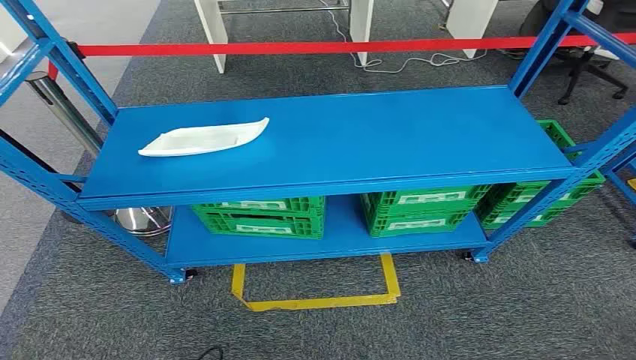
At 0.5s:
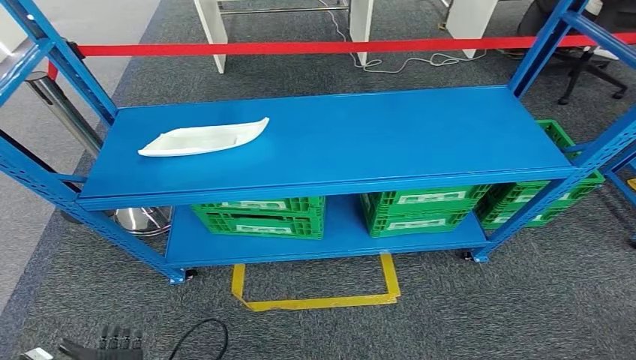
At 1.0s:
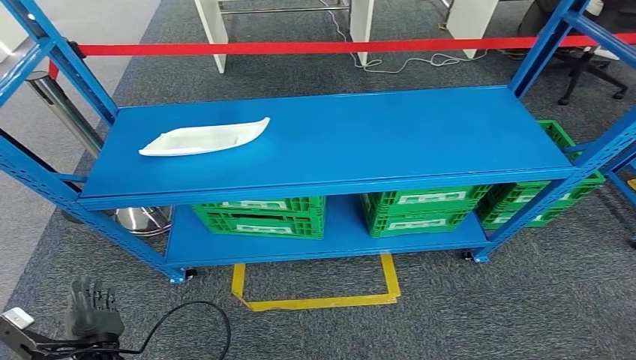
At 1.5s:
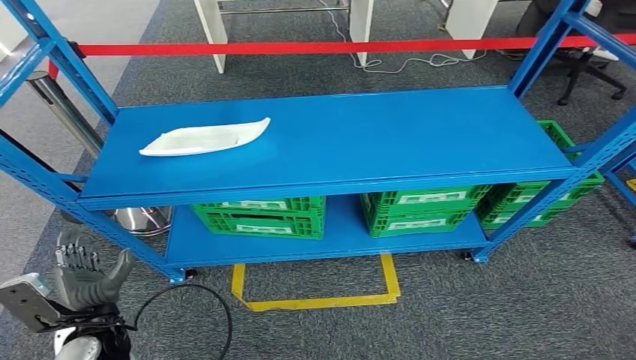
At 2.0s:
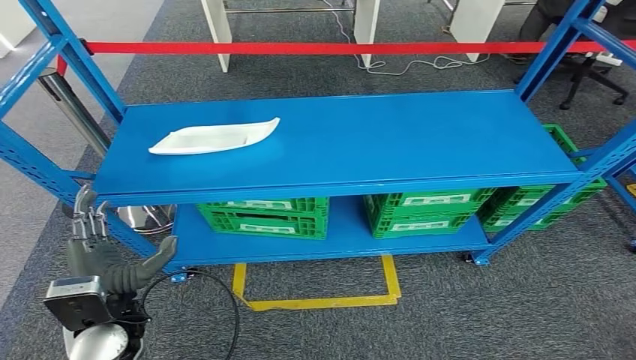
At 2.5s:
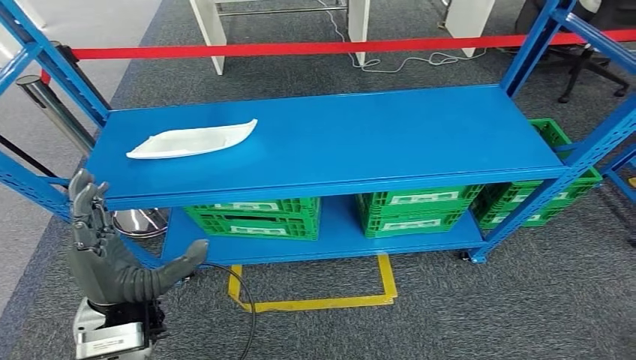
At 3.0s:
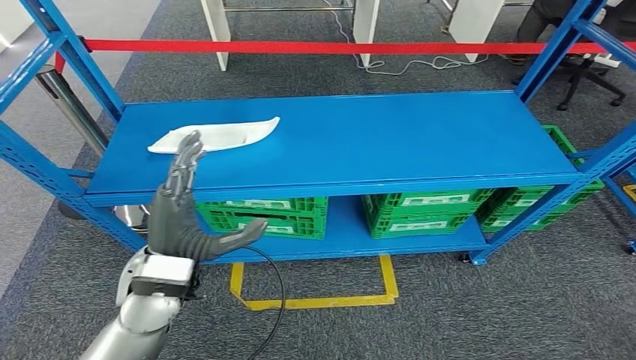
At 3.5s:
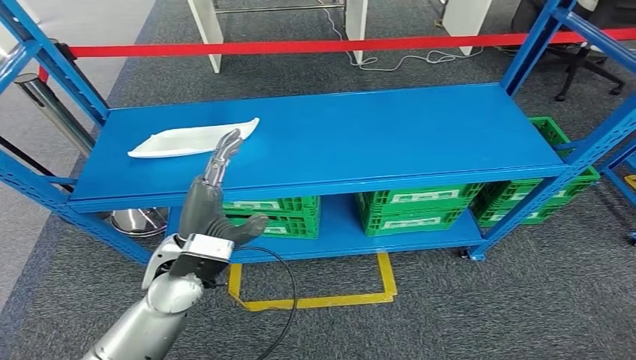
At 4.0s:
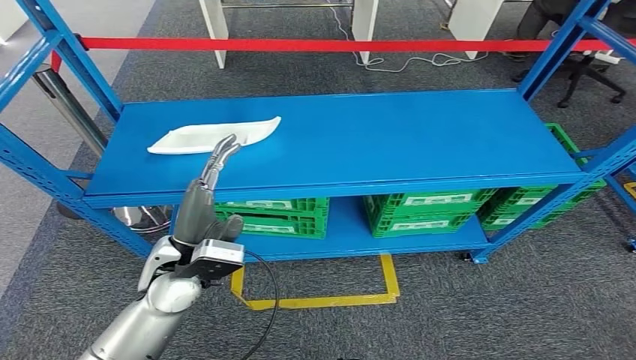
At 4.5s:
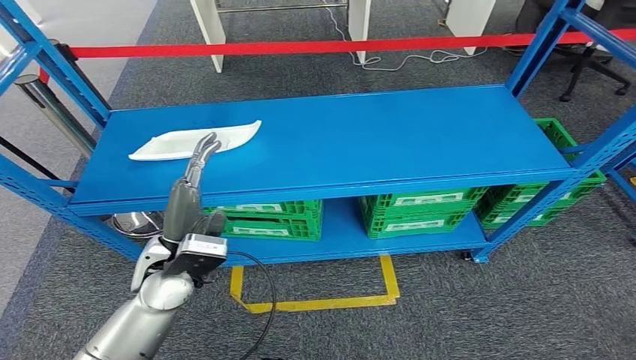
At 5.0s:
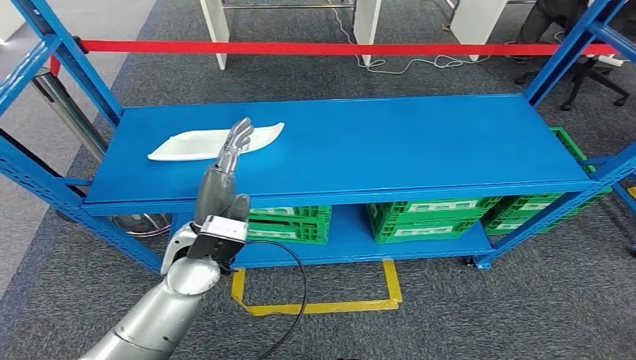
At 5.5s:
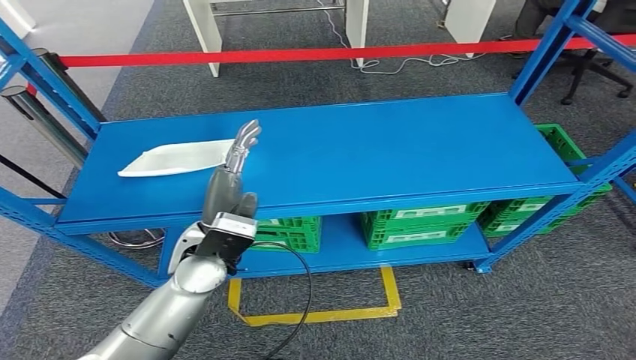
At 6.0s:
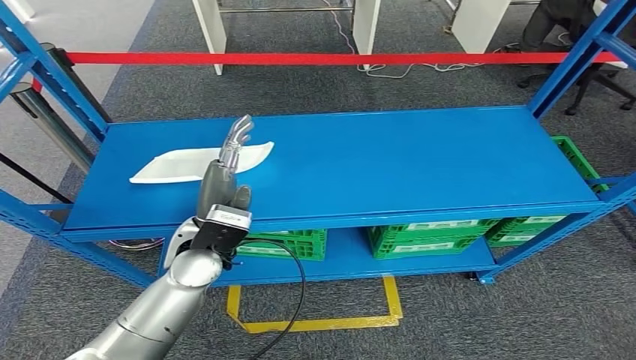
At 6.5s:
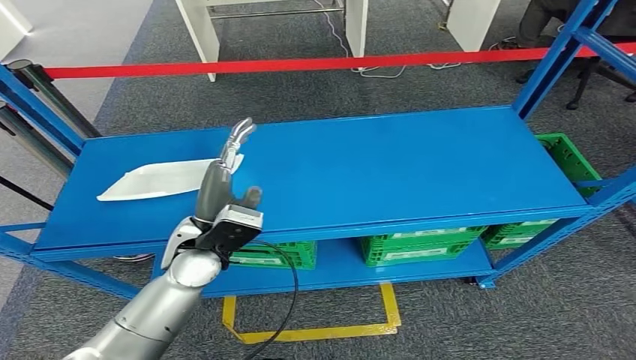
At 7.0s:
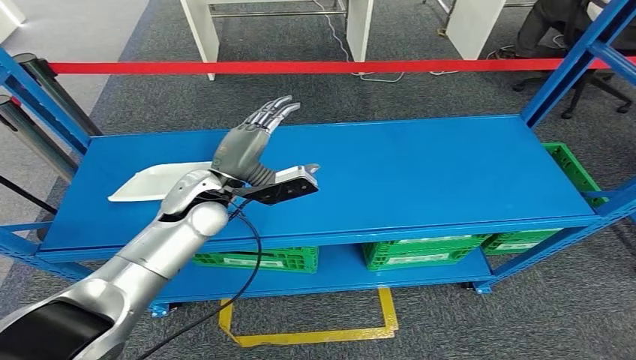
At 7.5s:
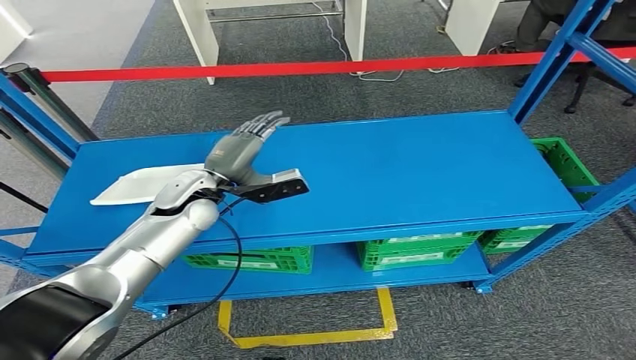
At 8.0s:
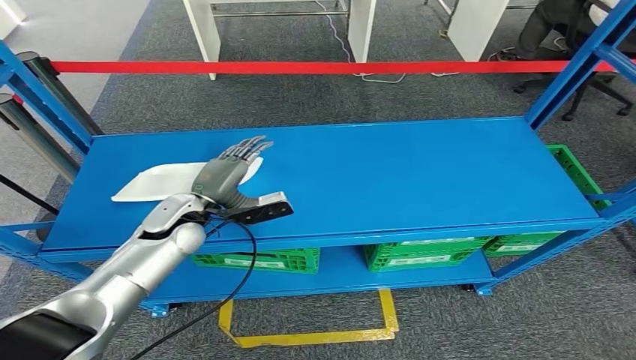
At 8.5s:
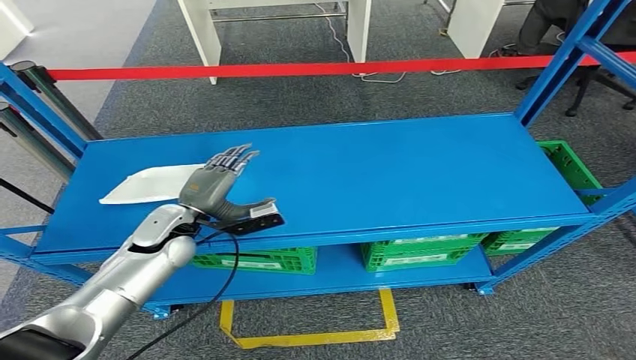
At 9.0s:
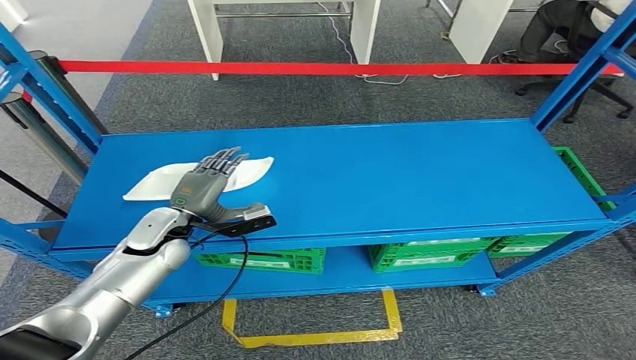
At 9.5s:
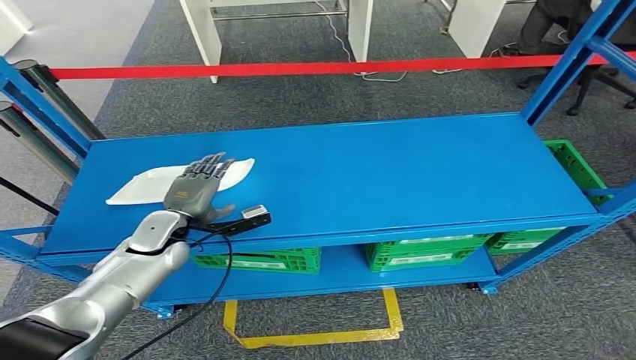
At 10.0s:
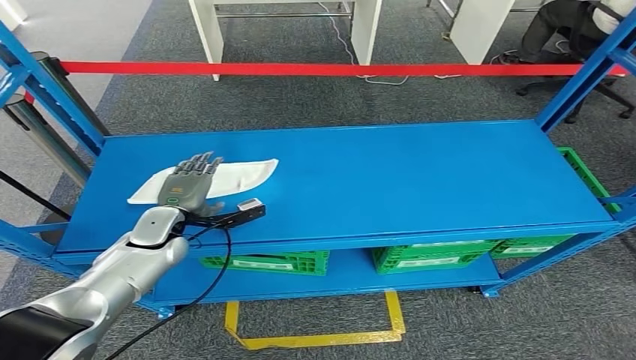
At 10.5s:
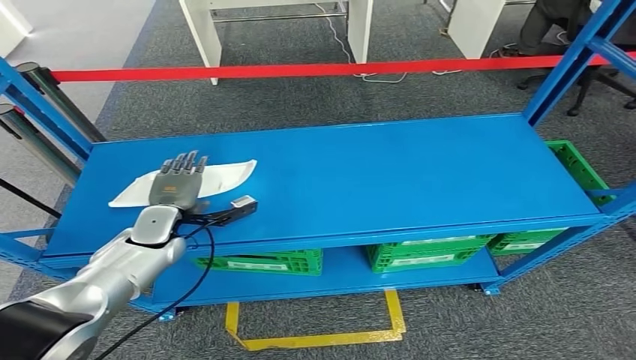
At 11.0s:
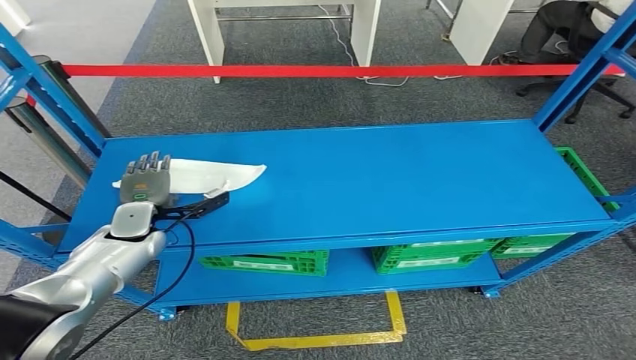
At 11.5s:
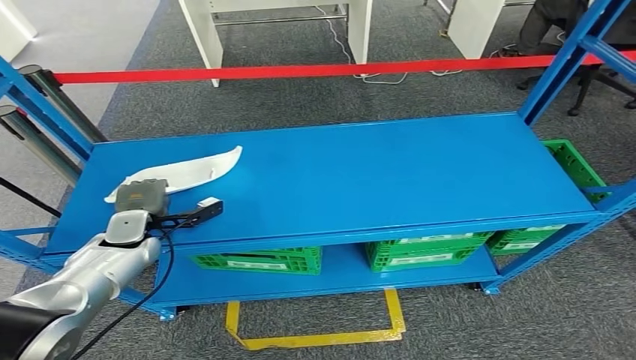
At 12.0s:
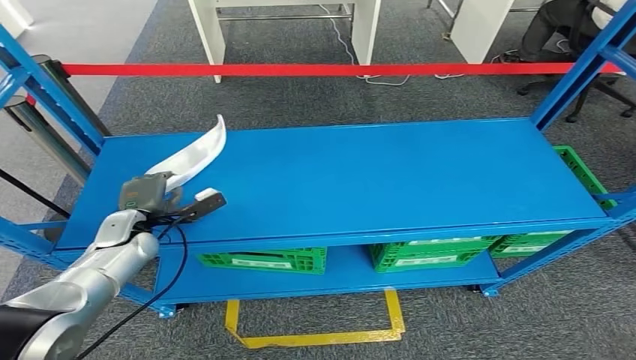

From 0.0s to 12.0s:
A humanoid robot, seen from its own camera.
From 2.0s to 4.0s: The left hand travels forward, to the right and upward by about 15 cm.
From 10.0s to 12.0s: The left hand goes some 5 cm to the left.

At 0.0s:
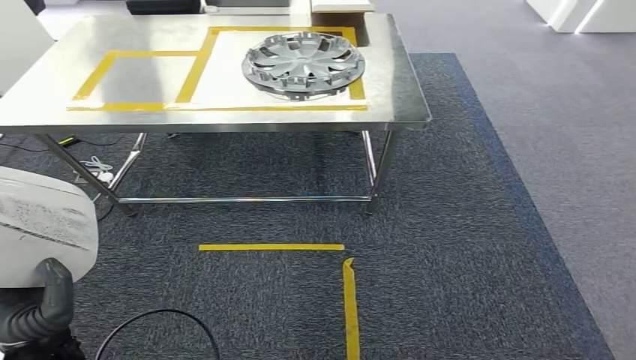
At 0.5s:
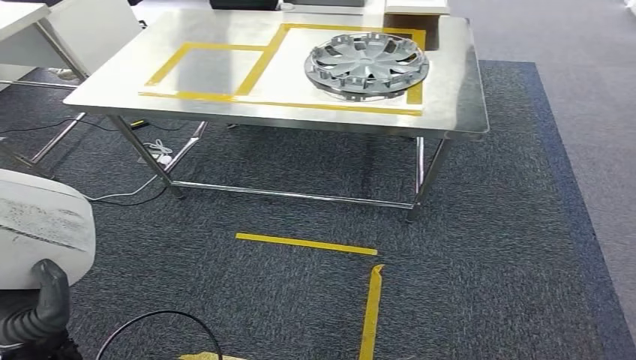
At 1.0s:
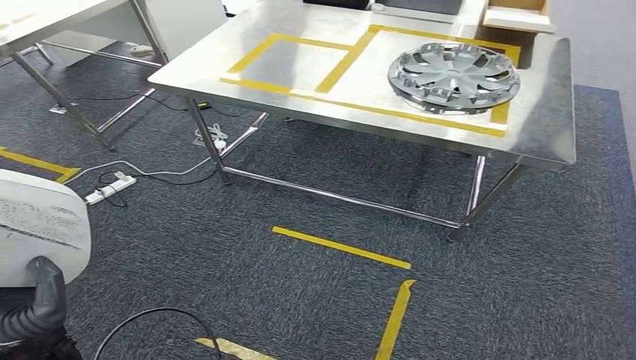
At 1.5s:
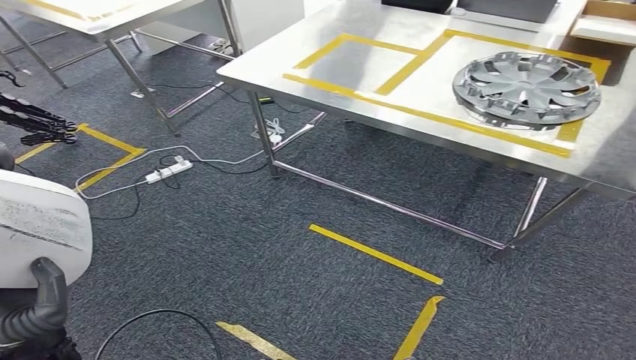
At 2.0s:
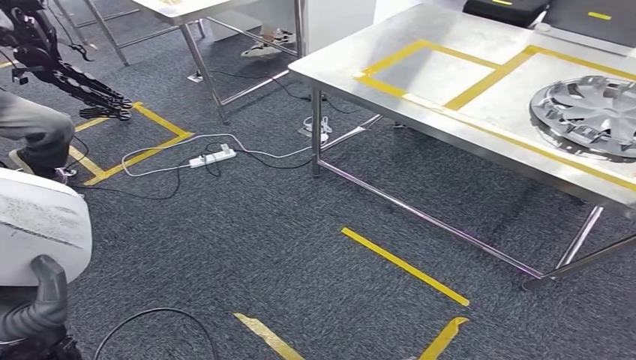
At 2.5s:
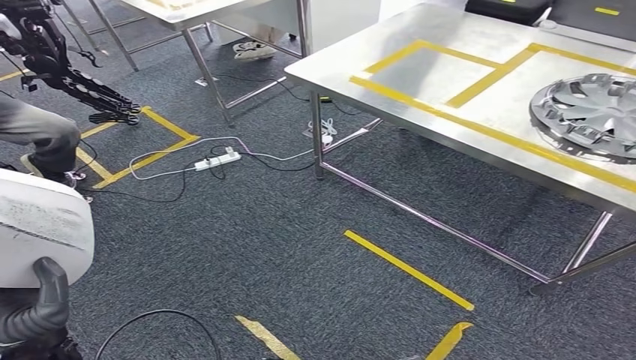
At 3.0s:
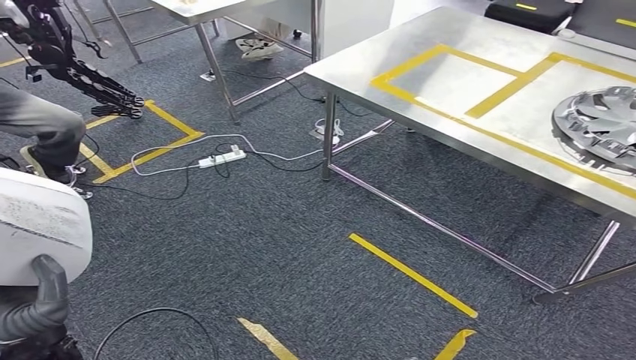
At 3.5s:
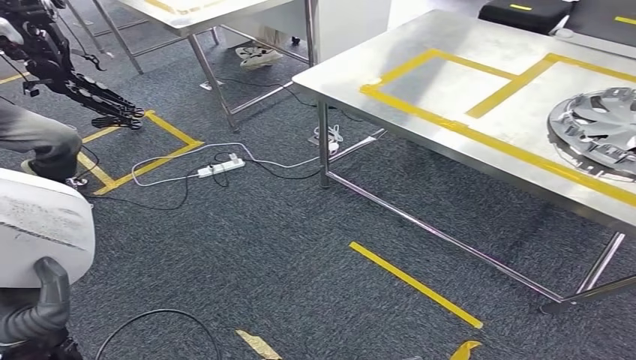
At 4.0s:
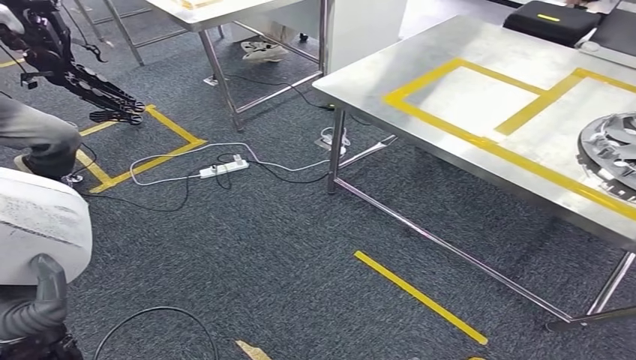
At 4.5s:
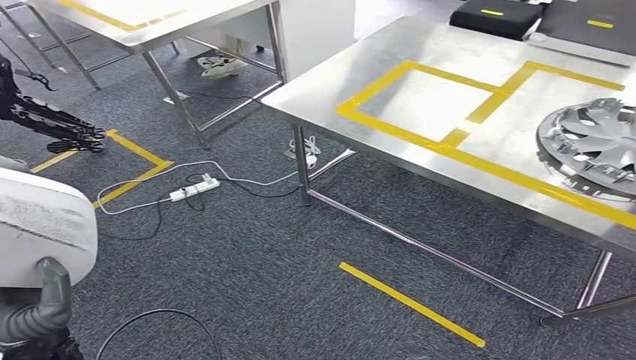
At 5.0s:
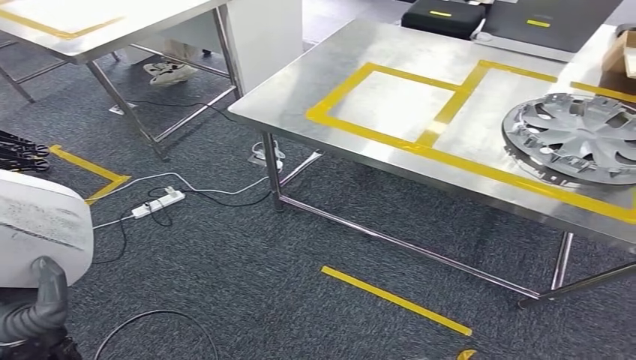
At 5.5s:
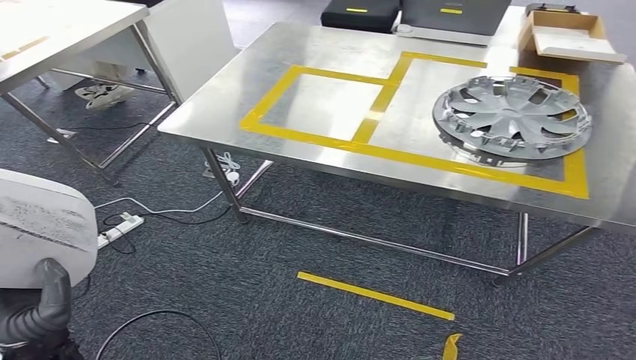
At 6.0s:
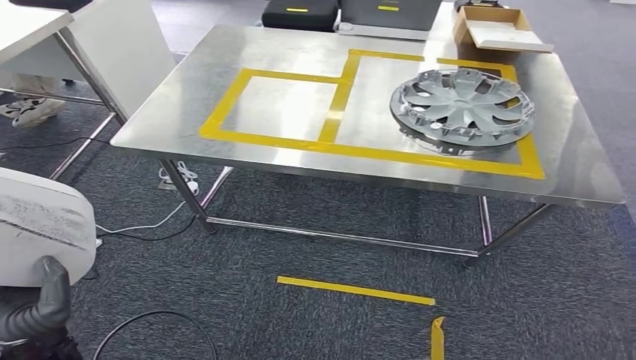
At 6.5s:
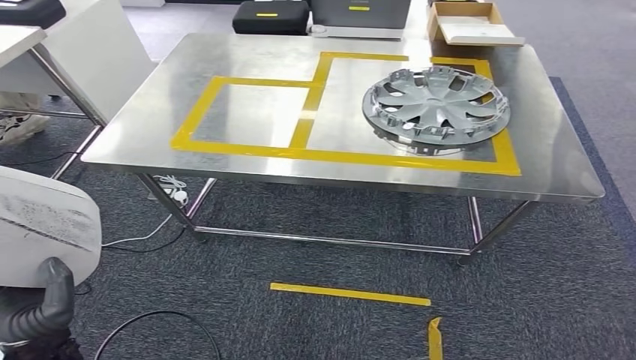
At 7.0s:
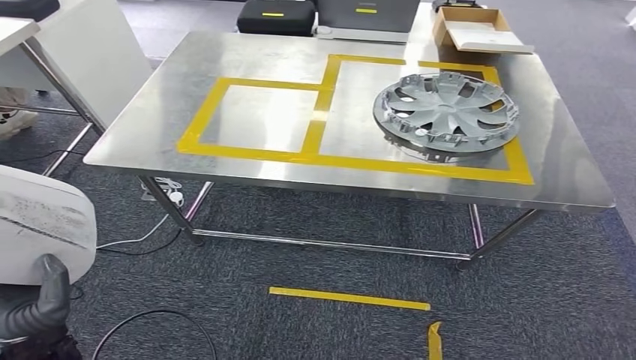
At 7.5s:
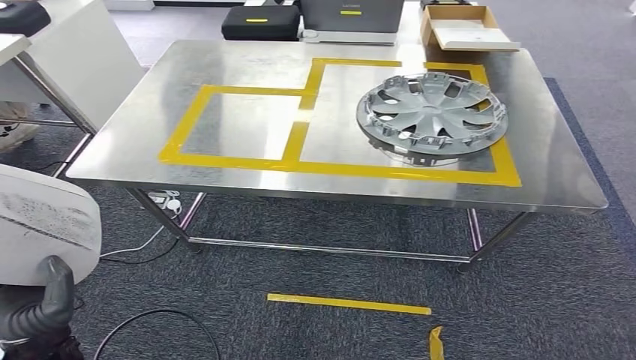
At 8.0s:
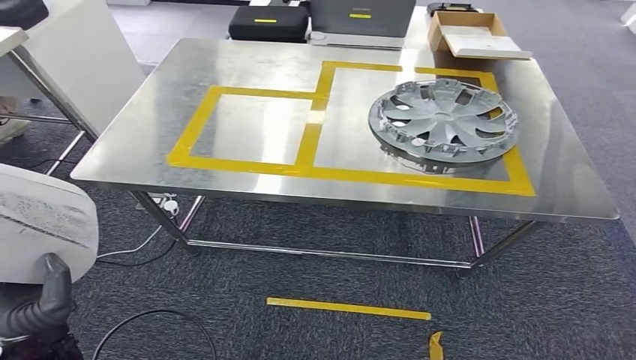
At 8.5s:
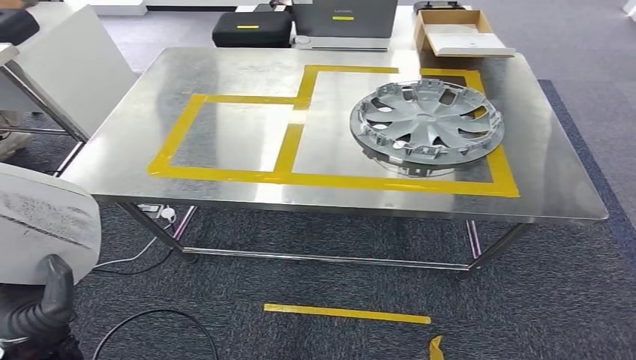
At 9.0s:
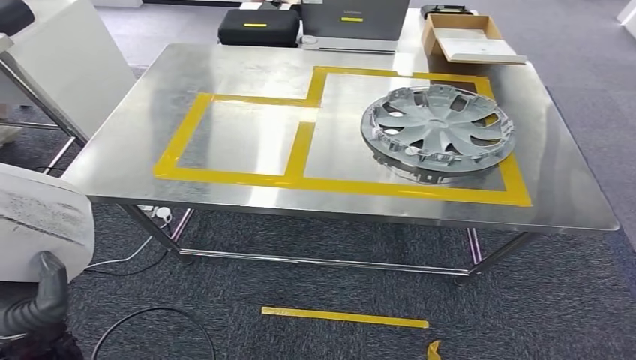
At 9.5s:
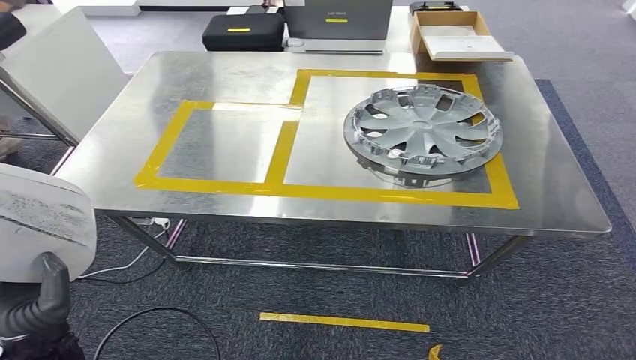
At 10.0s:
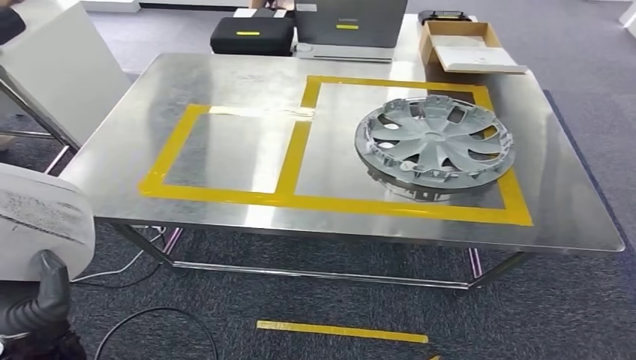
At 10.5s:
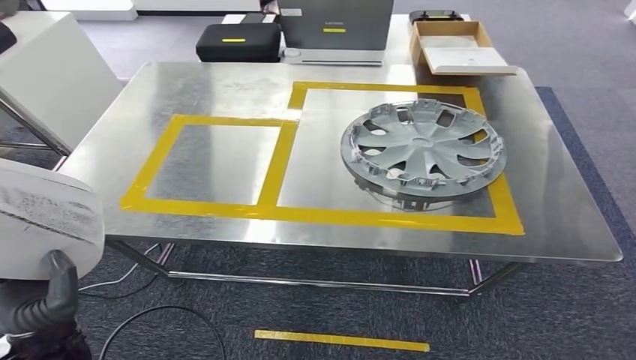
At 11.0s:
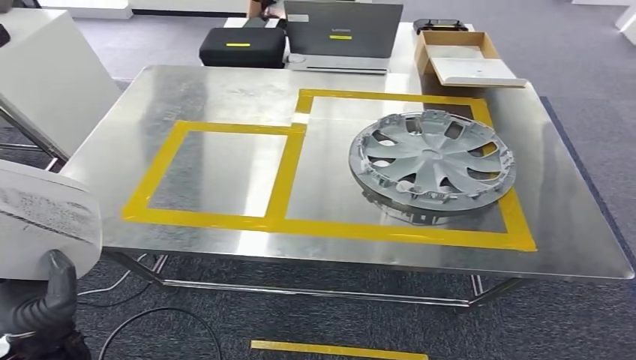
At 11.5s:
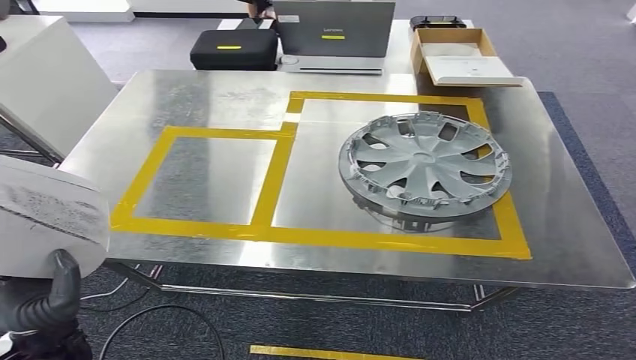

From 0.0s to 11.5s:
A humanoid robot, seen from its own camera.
Step, from 0.0s to 6.0s: Move the small parts to the workbench.
